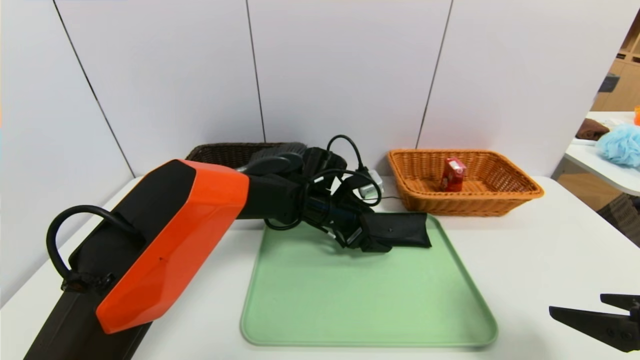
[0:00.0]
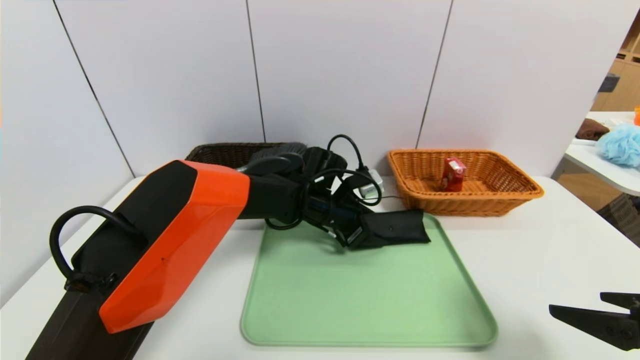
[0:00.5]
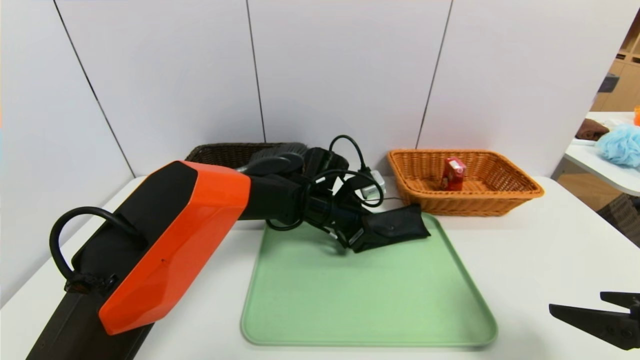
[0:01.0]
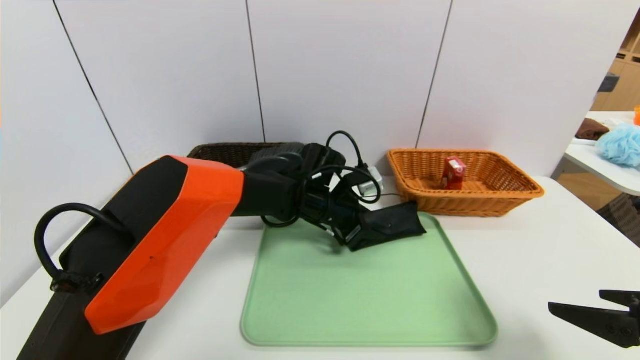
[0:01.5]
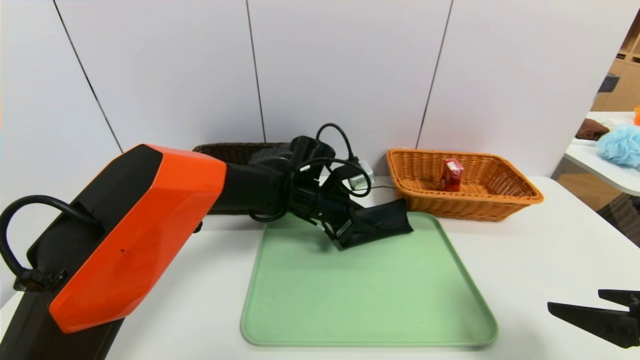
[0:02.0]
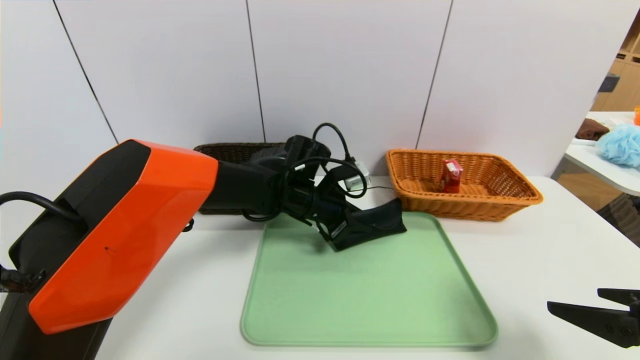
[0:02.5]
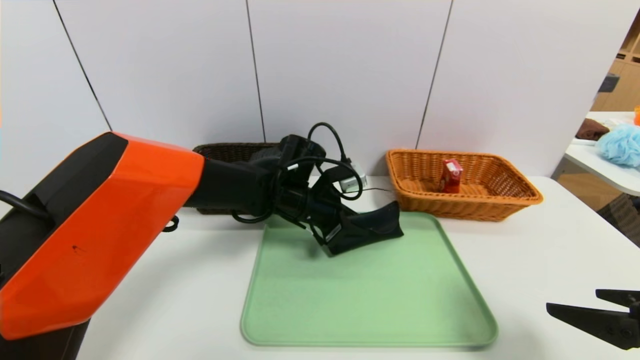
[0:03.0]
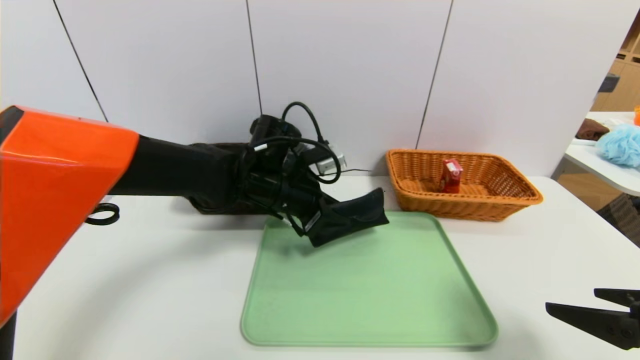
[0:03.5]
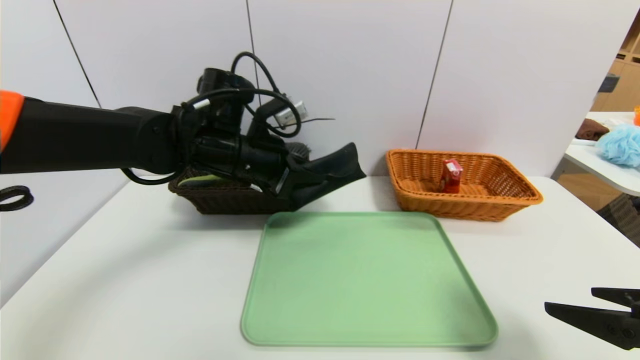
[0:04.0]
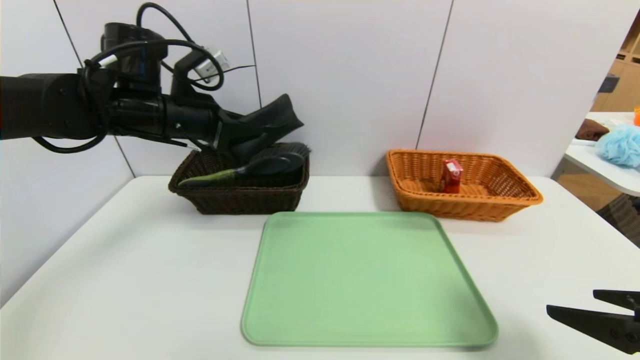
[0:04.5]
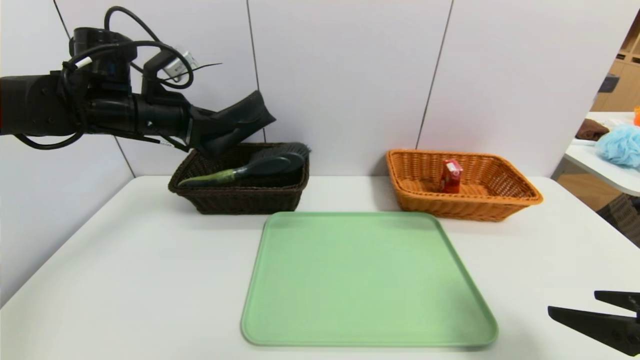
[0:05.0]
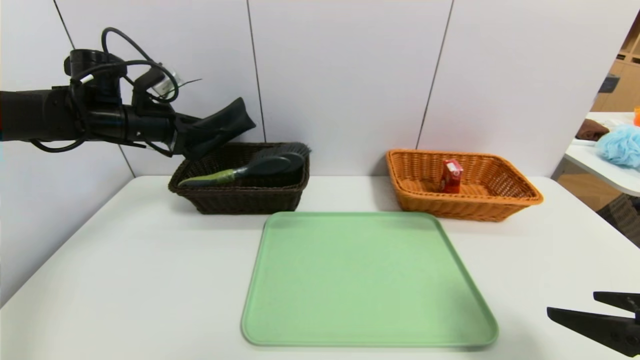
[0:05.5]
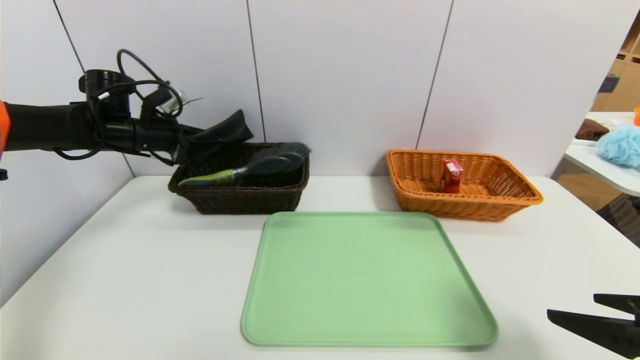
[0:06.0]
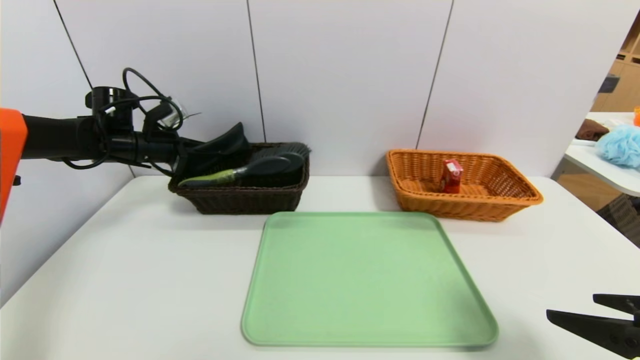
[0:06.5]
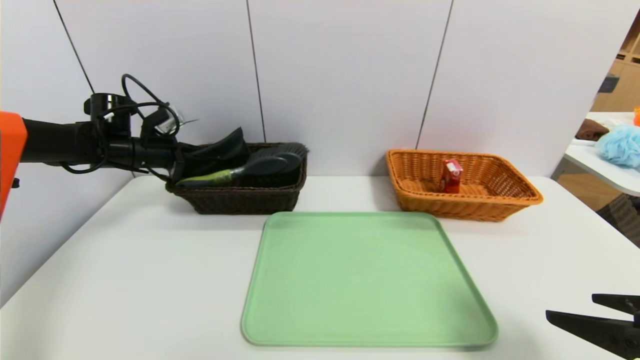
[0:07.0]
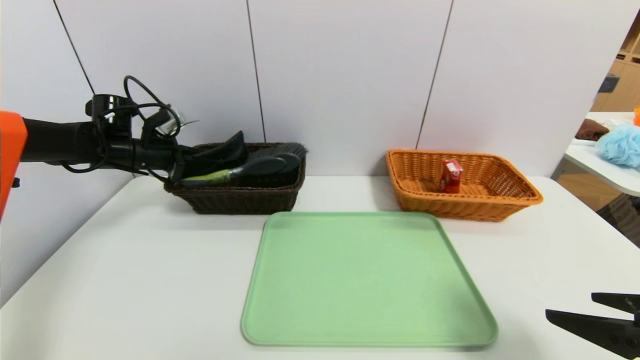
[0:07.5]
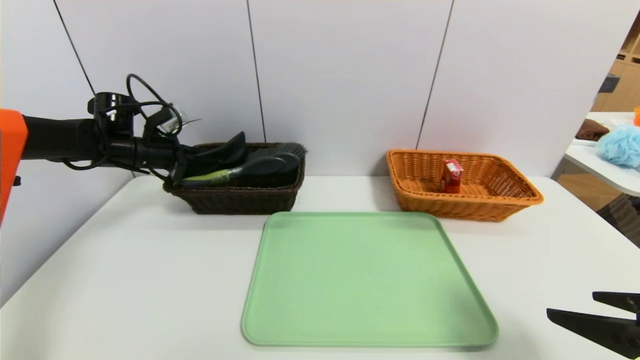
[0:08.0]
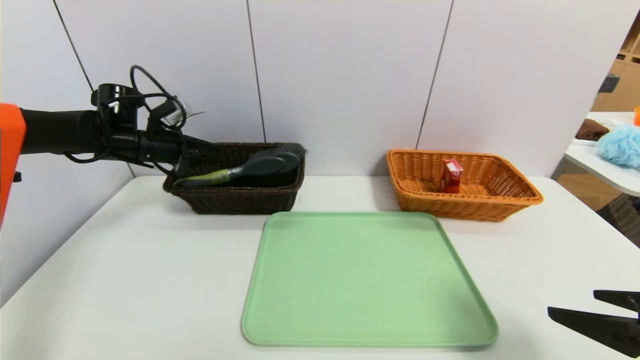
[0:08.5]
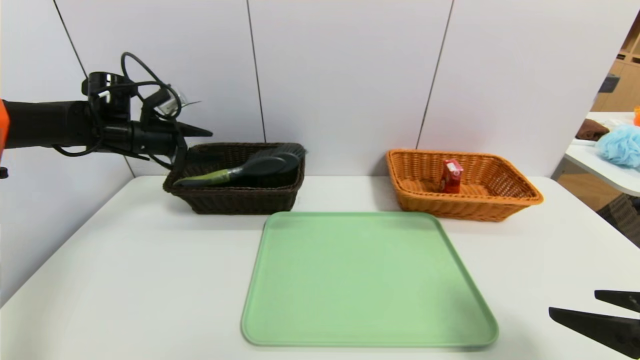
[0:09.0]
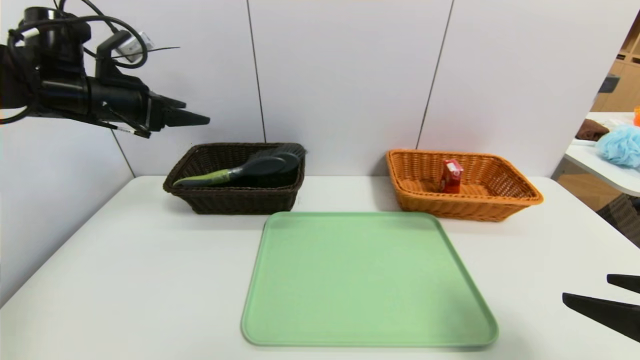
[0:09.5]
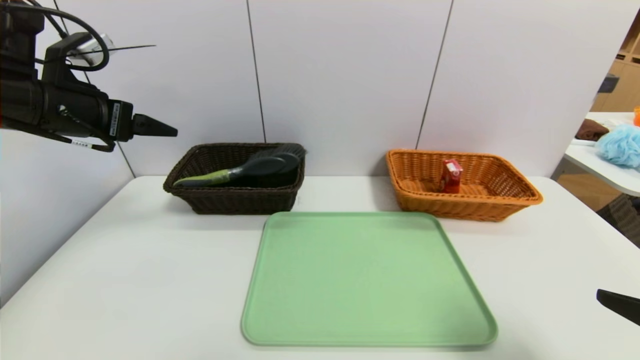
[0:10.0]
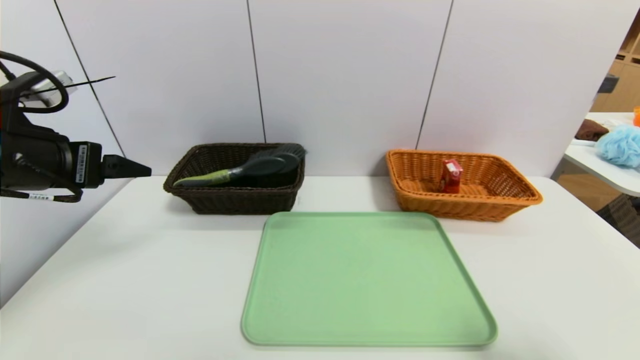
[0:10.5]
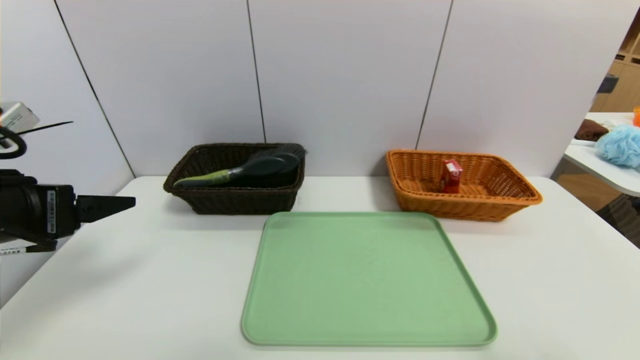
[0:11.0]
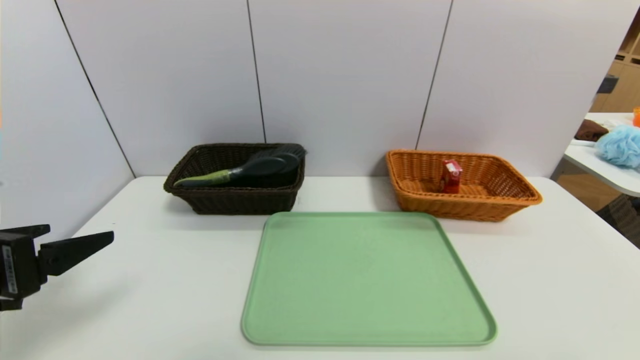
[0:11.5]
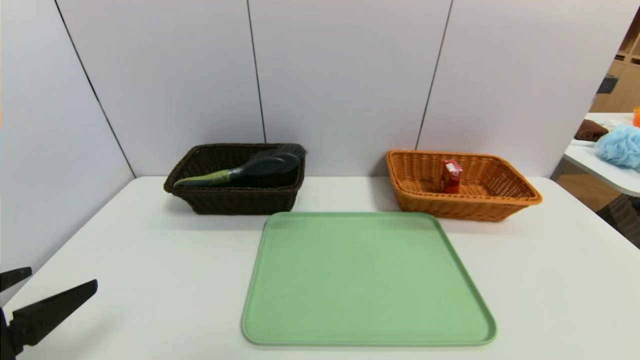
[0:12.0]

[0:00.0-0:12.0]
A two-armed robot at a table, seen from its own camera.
Task of the whole recording: place the food in the right basket with the right gripper, and place the non food items in the left basket with the left gripper.
Step, 0:00.0 to 0:08.5: Grasp the glasses case and put it in the left basket.
0:00.0 to 0:02.0: The left gripper closes.
0:02.0 to 0:04.0: The left gripper goes approximately 15 cm upward and to the left.
0:04.0 to 0:06.0: The left gripper moves to the left and forward, some 20 cm.
0:06.0 to 0:08.0: There are only small adjustments of the grippers.
0:08.0 to 0:10.0: The left gripper travels backward and upward by roughly 20 cm, and opens.
0:10.0 to 0:12.0: The left gripper heads backward and downward, covering approximately 25 cm; the right gripper moves backward, approximately 10 cm.

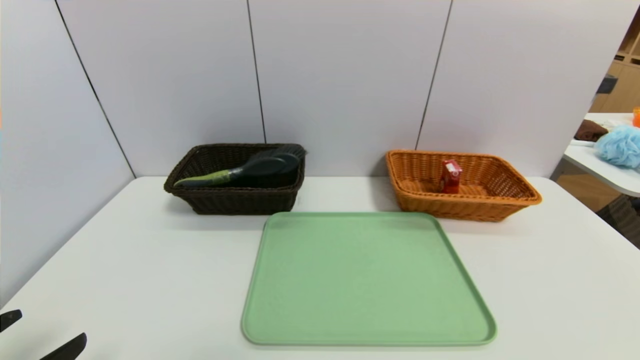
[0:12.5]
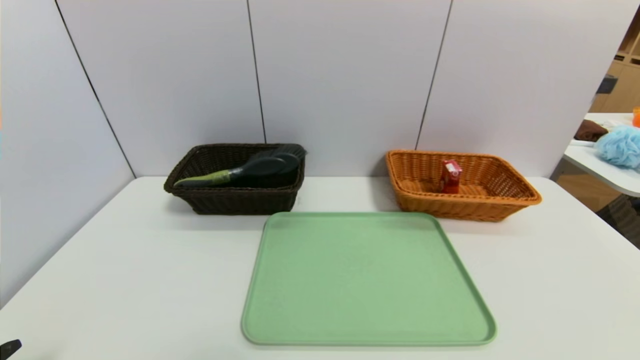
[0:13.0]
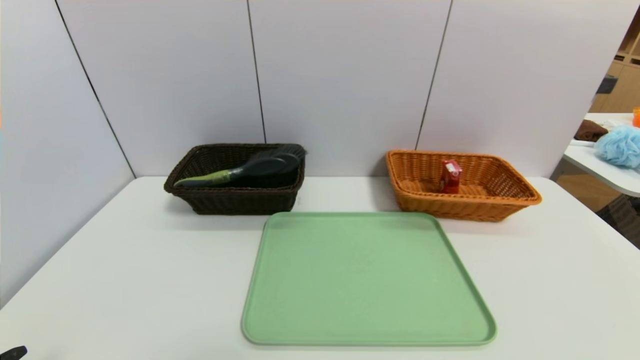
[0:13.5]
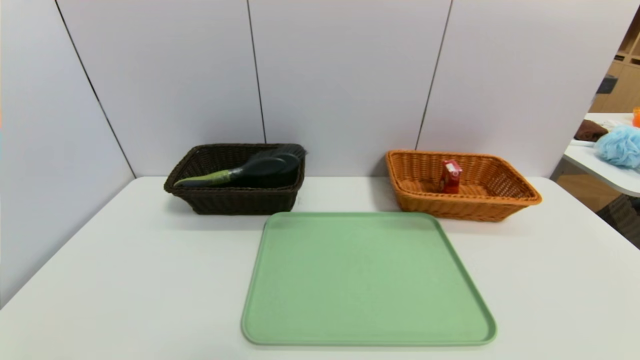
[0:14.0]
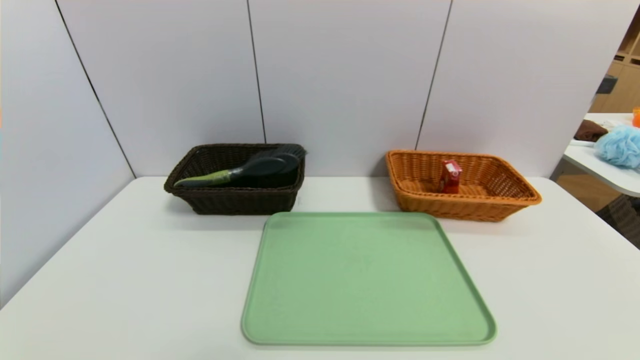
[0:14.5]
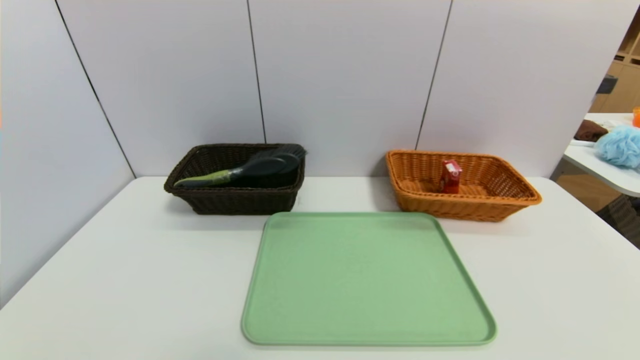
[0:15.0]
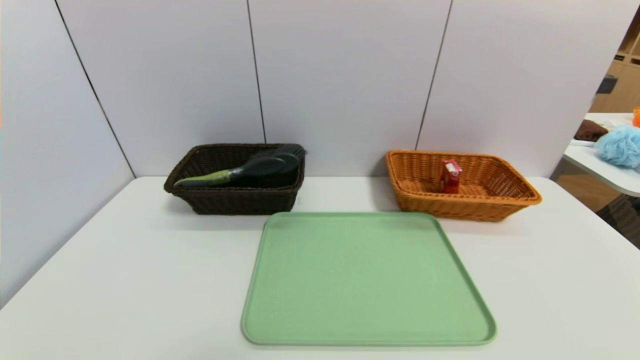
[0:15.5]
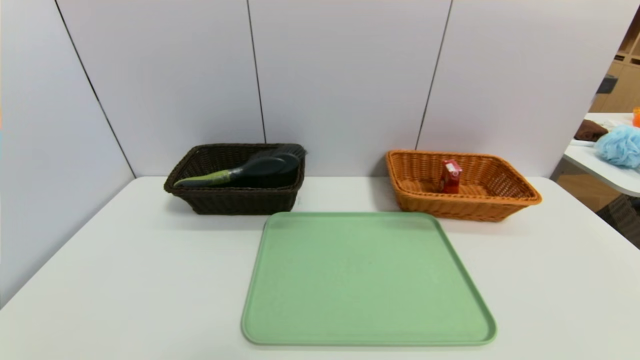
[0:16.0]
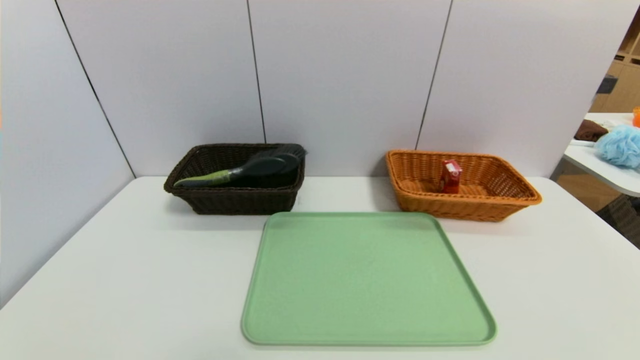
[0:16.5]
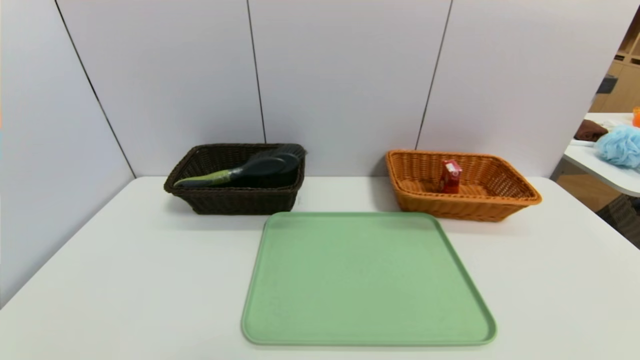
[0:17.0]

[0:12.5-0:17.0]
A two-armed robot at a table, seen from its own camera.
Task of the whole recording: place the food in the right basket with the right gripper, and place the non food items in the left basket with the left gripper.
0:12.5 to 0:14.5: The left gripper shifts approximately 5 cm downward.

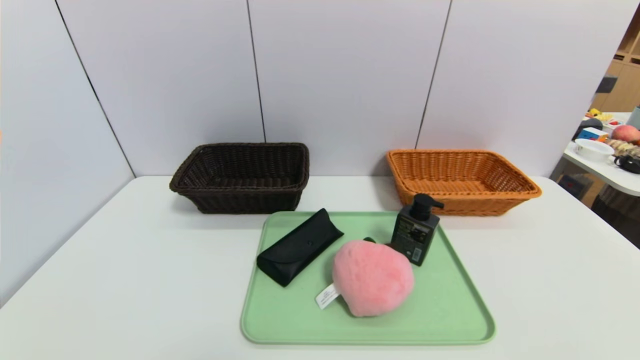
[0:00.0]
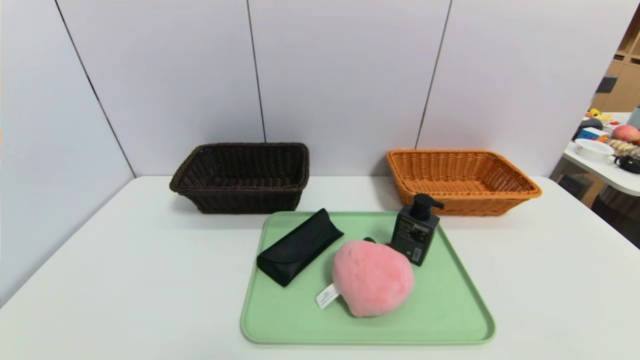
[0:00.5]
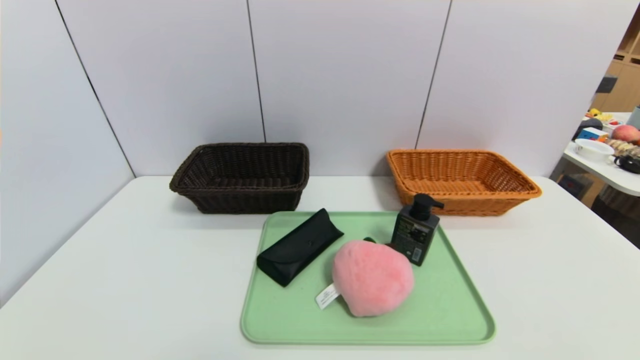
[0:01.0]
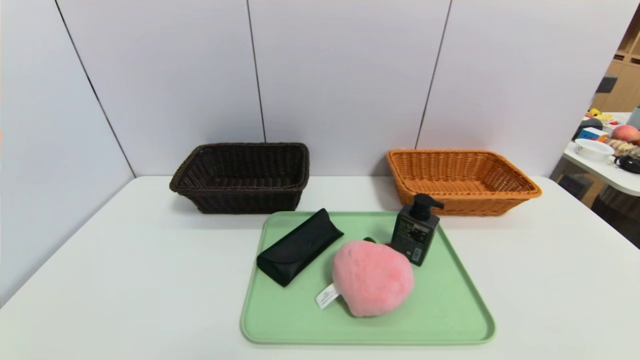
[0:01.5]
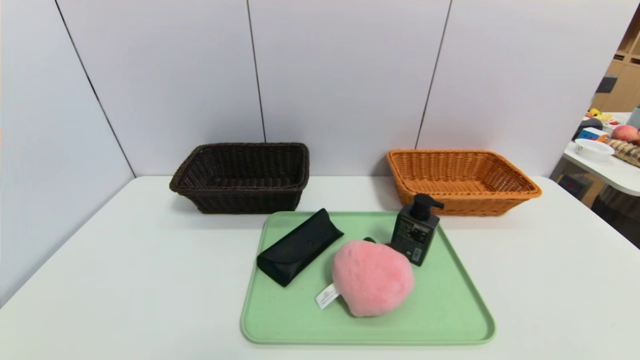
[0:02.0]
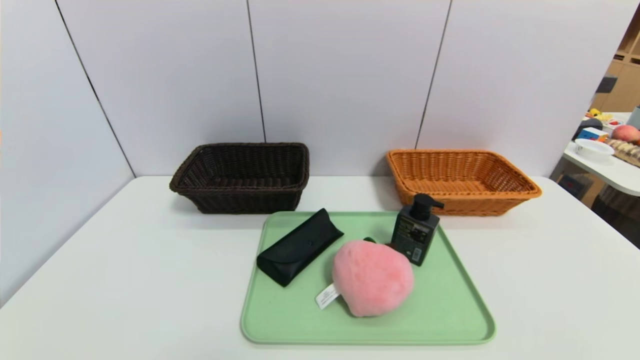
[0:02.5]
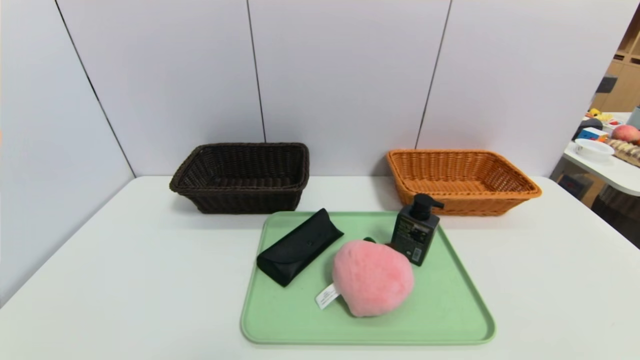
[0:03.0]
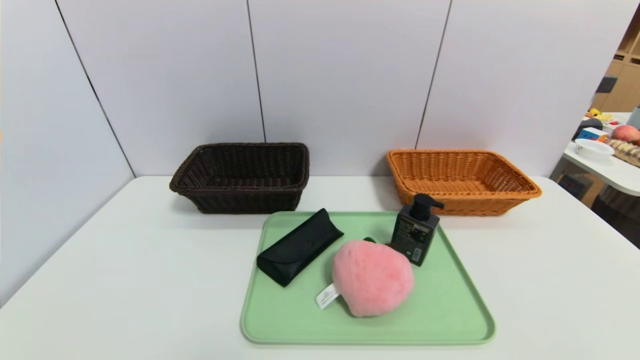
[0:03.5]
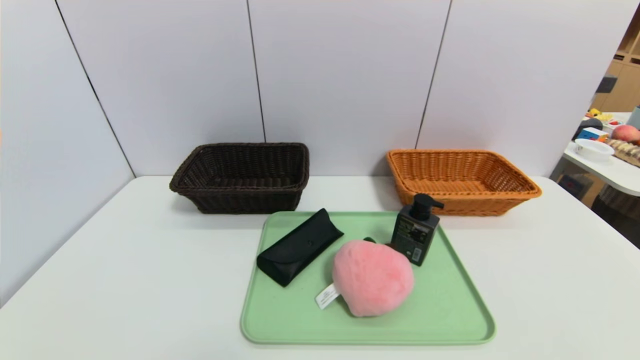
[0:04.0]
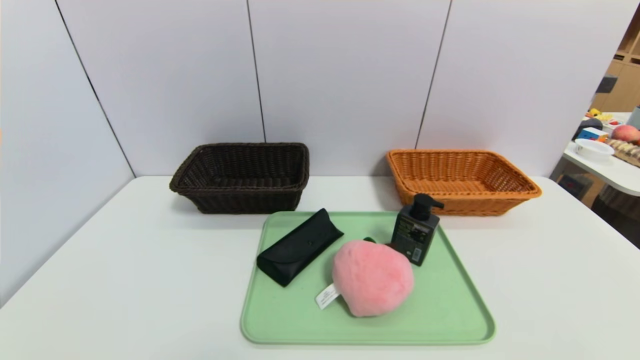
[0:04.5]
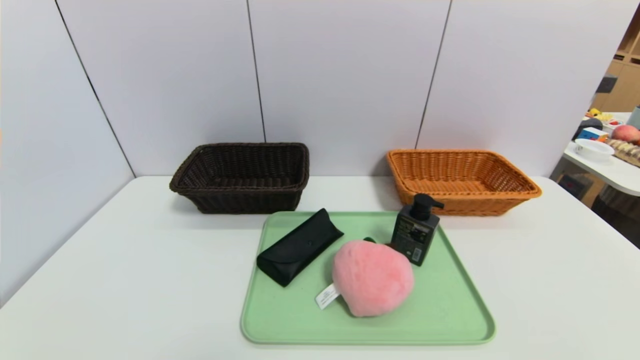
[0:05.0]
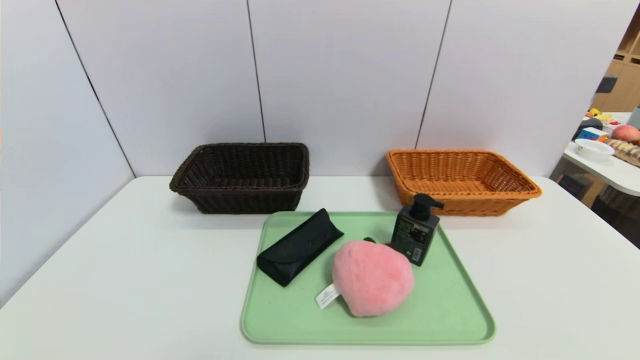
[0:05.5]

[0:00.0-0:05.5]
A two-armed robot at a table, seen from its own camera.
Task of the whole recording: place the food in the right basket with the right gripper, and place the non food items in the left basket with the left gripper.
0:00.0 to 0:03.5: The two grippers keep their place.
